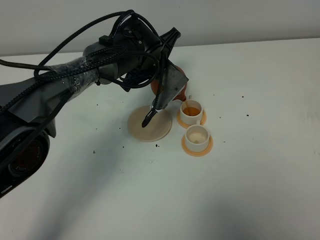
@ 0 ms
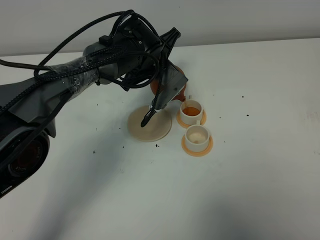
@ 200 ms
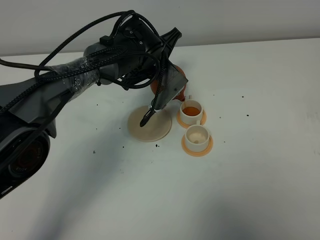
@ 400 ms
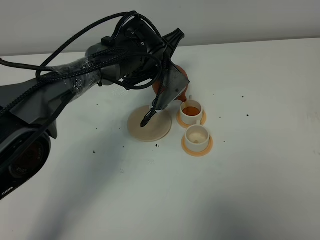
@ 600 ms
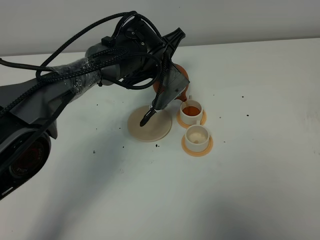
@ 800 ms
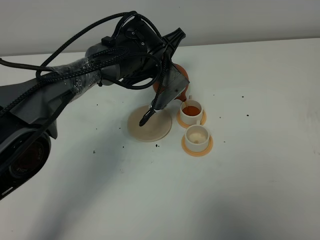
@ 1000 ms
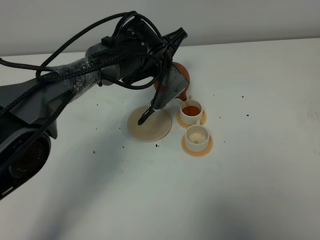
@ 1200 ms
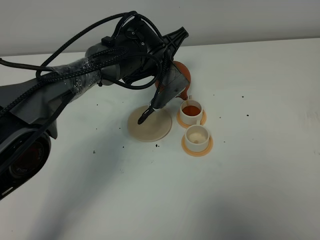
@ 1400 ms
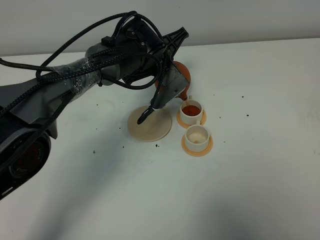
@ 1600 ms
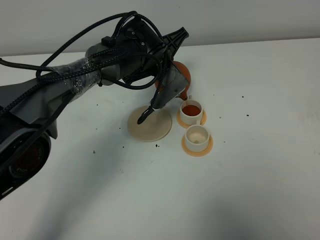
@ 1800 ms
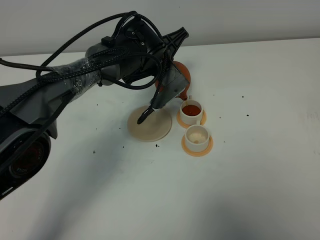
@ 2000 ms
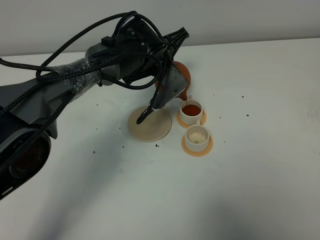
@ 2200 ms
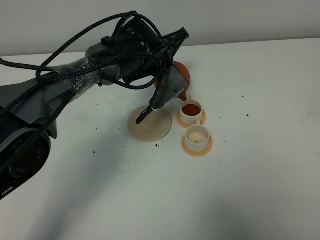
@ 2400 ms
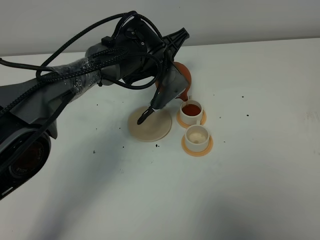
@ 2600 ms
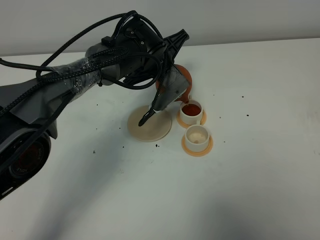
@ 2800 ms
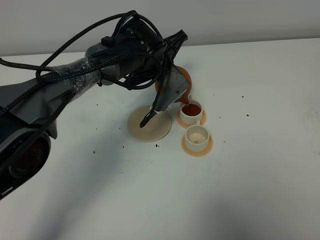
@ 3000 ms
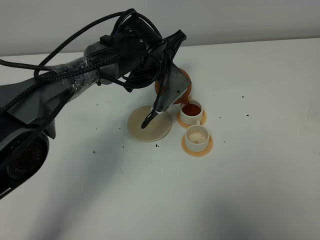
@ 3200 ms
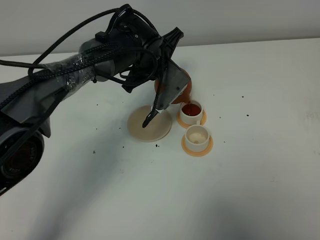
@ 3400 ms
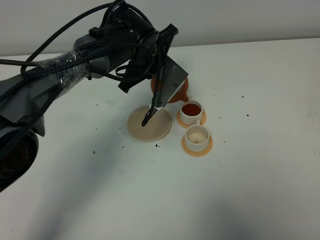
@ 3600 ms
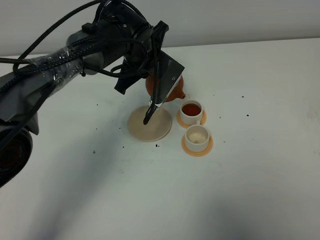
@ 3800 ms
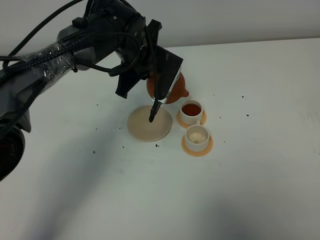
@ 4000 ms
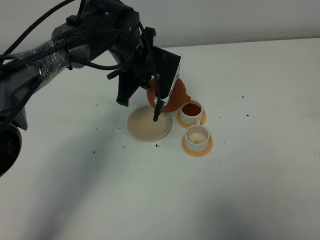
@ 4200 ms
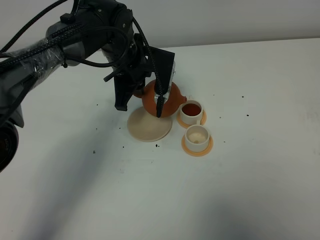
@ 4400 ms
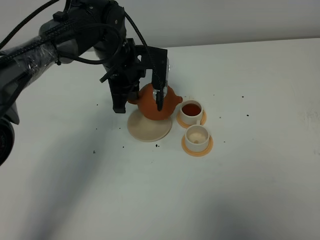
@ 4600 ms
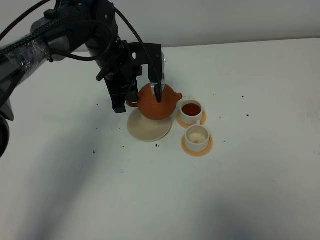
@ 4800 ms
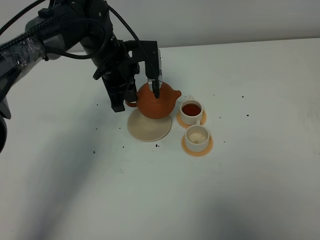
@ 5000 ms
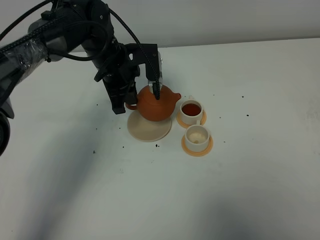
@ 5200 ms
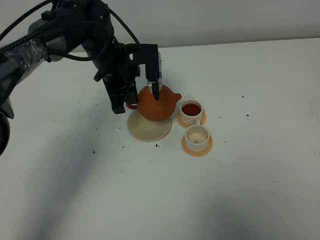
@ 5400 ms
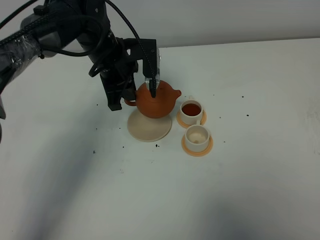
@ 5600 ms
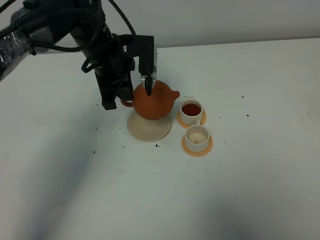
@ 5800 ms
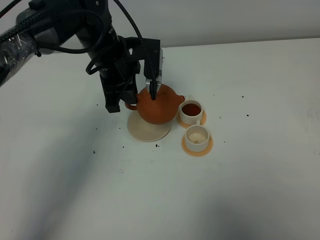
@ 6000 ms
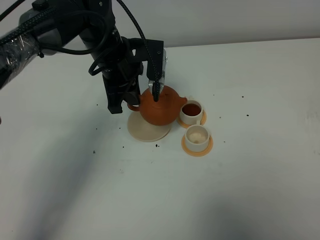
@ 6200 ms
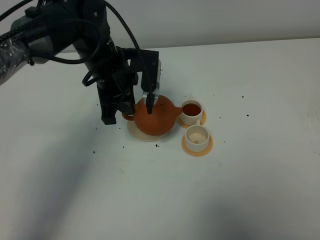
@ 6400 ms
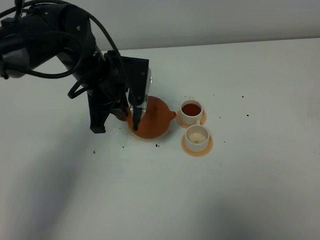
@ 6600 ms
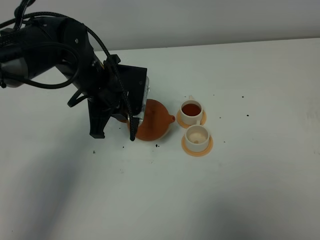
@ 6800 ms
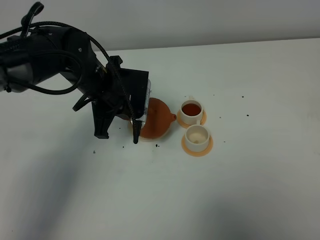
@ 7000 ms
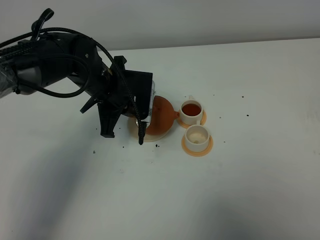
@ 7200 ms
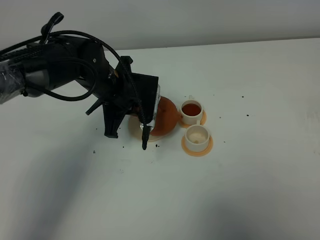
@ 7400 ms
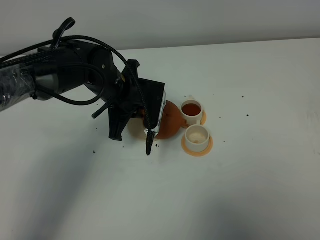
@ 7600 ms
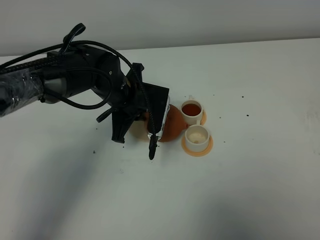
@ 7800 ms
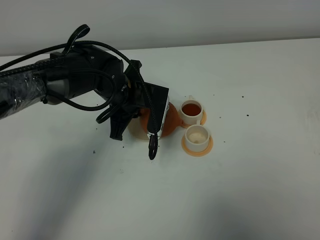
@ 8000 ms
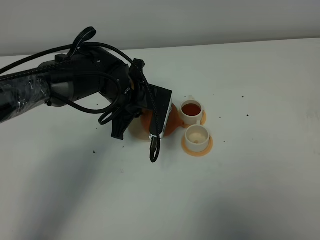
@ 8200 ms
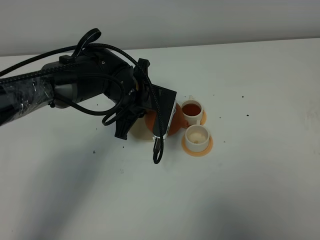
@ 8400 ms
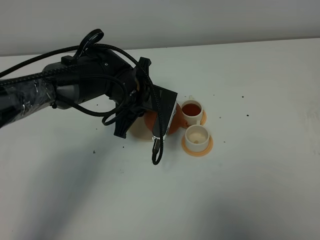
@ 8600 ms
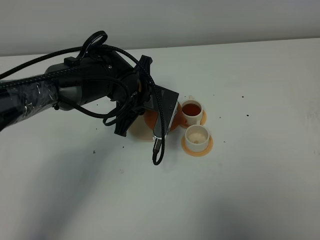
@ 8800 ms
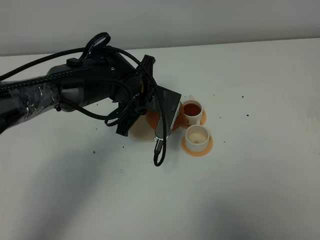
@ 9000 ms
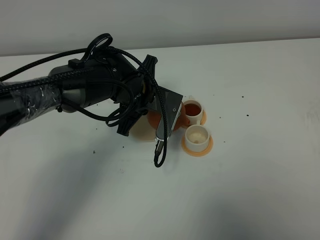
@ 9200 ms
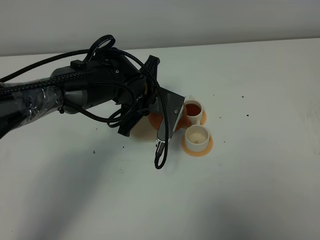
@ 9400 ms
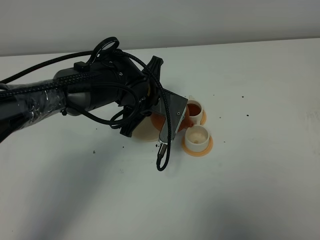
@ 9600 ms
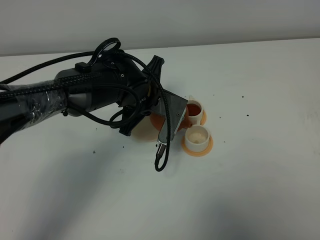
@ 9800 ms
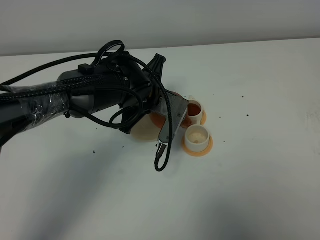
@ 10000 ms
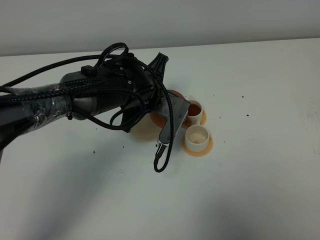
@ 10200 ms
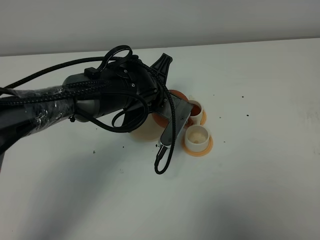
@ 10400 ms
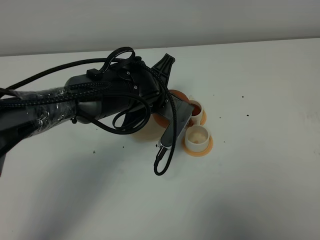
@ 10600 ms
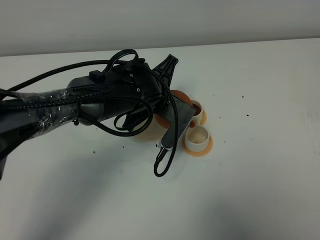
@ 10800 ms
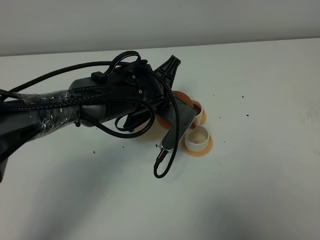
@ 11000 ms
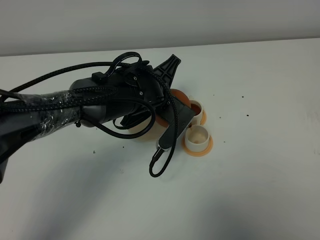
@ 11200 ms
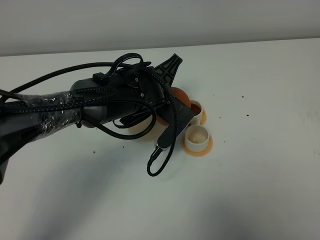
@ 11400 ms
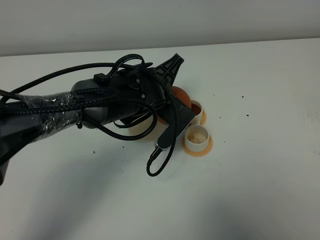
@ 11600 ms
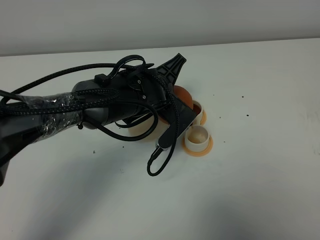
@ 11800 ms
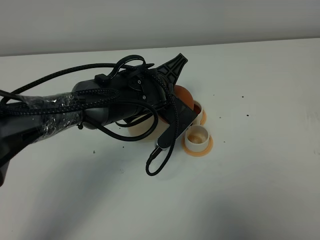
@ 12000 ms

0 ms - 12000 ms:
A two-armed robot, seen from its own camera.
Task of the whole recording: grasp the brown teapot and pour the tea into the two white teacups one by one, put the brown teapot back in its original place.
Step, 0 ms - 3400 ms: Pour tea into the teacup with the left gripper.
0 ms - 1600 ms: The grippers stay close to where they were, moving slightly.
1600 ms - 3000 ms: Both grippers stay put.
3000 ms - 4400 ms: The left gripper shifts some 5 cm to the left.
4400 ms - 6000 ms: The grippers make only small movements.
6000 ms - 7600 ms: The left gripper shifts about 5 cm downward.
7600 ms - 9000 ms: The grippers make only small movements.
9000 ms - 10400 ms: There are only small adjustments of the grippers.
10400 ms - 12000 ms: The grippers stay close to where they were, moving slightly.

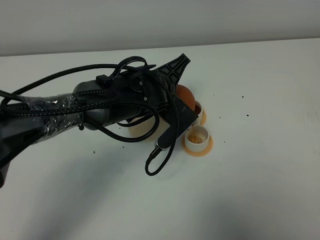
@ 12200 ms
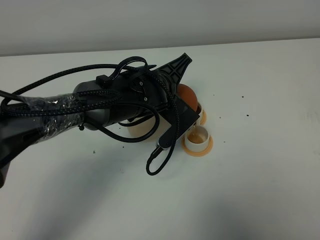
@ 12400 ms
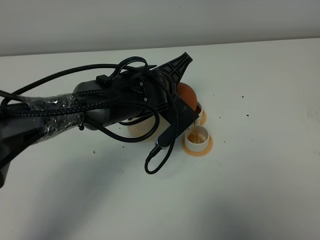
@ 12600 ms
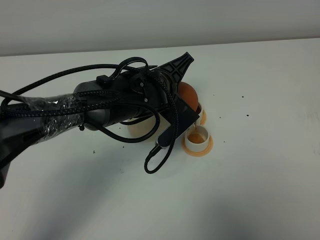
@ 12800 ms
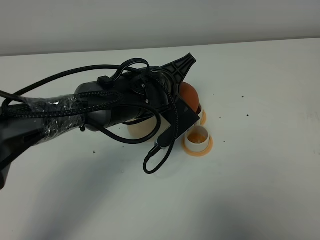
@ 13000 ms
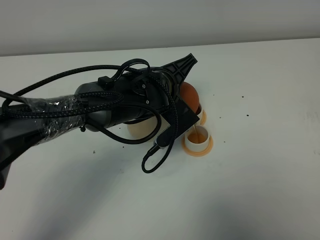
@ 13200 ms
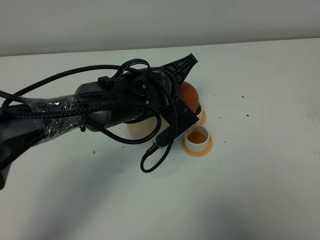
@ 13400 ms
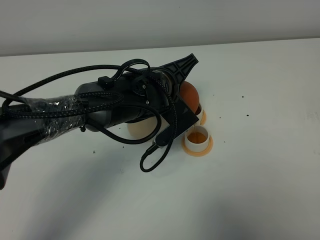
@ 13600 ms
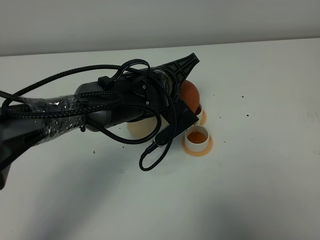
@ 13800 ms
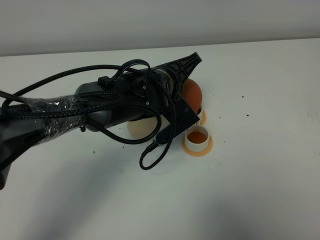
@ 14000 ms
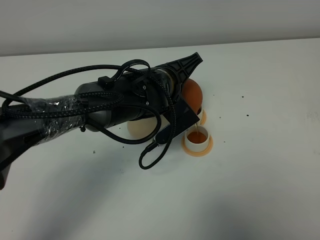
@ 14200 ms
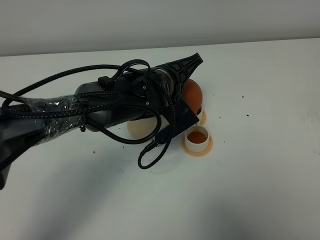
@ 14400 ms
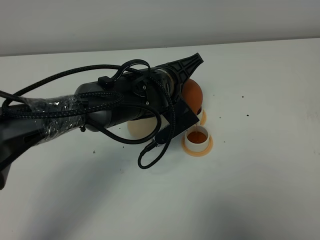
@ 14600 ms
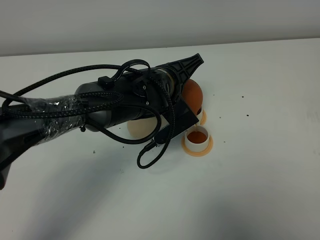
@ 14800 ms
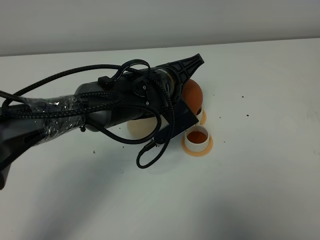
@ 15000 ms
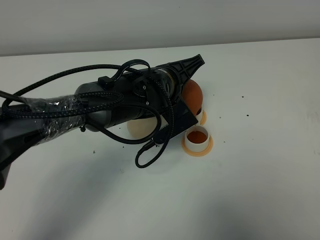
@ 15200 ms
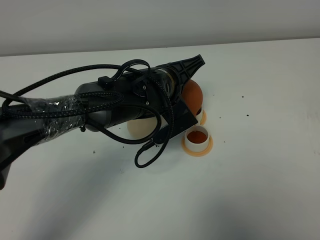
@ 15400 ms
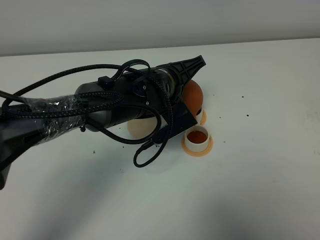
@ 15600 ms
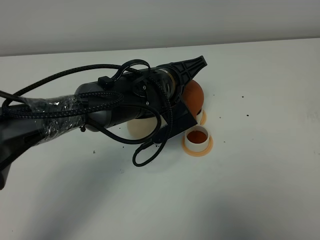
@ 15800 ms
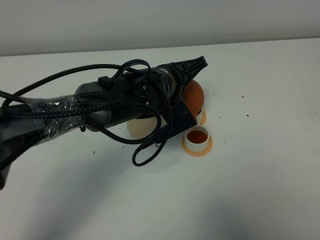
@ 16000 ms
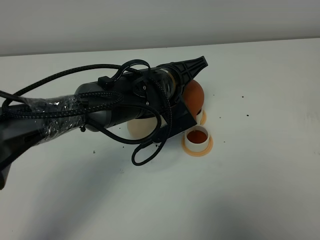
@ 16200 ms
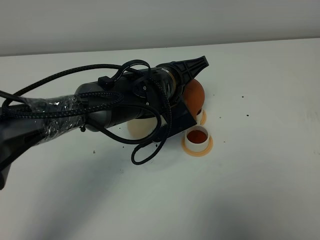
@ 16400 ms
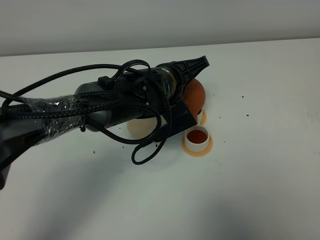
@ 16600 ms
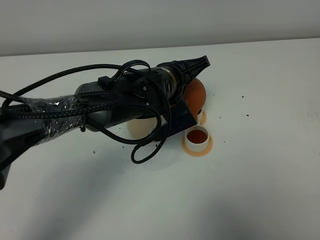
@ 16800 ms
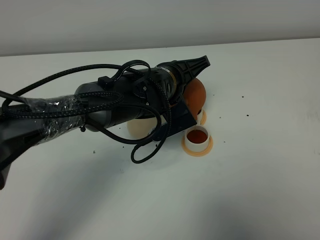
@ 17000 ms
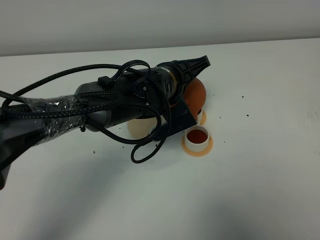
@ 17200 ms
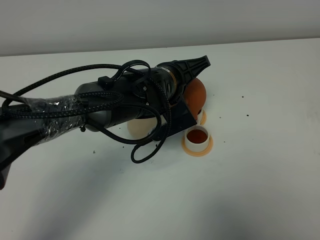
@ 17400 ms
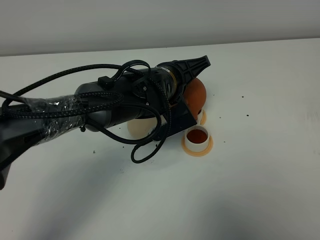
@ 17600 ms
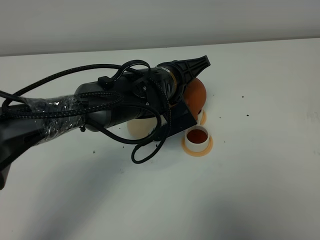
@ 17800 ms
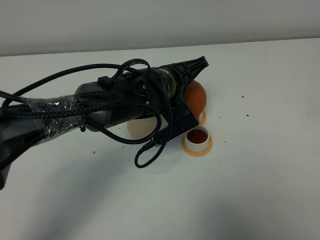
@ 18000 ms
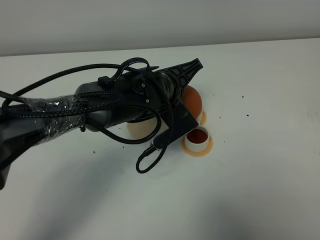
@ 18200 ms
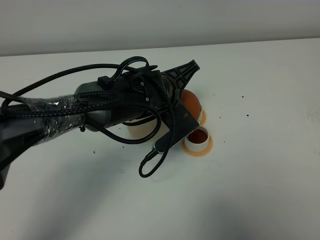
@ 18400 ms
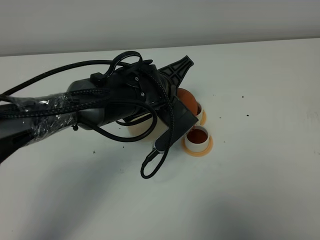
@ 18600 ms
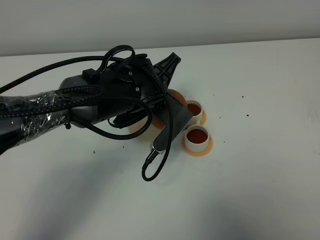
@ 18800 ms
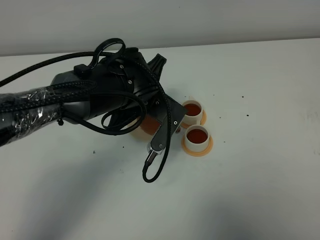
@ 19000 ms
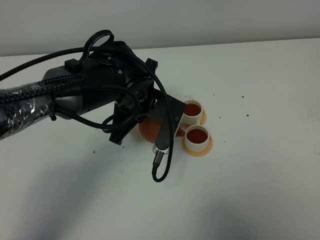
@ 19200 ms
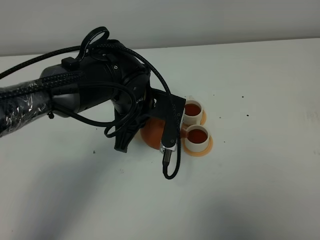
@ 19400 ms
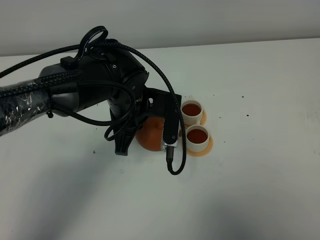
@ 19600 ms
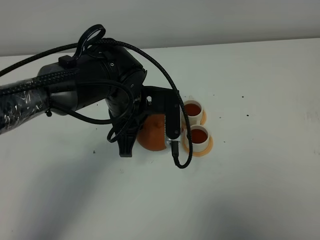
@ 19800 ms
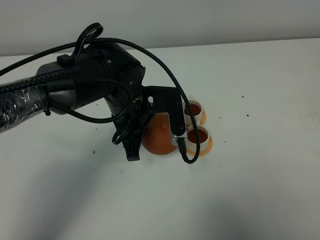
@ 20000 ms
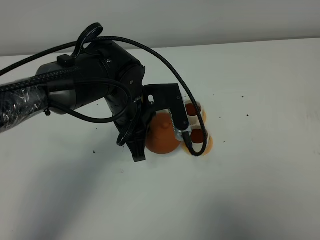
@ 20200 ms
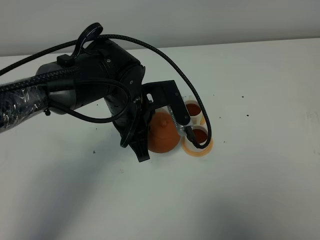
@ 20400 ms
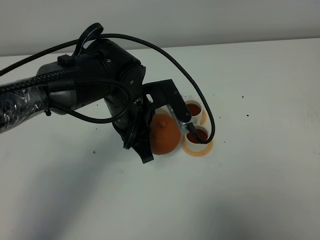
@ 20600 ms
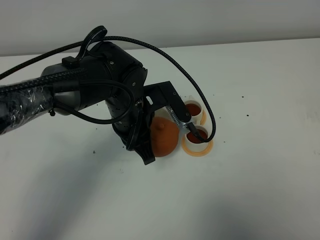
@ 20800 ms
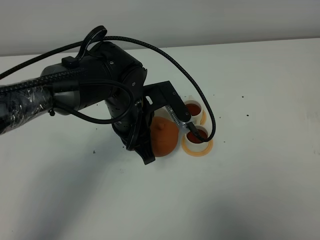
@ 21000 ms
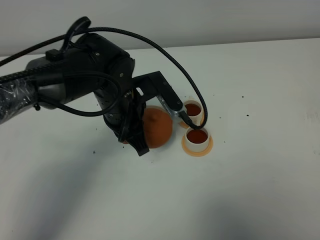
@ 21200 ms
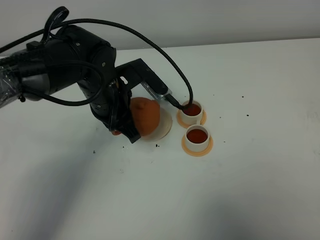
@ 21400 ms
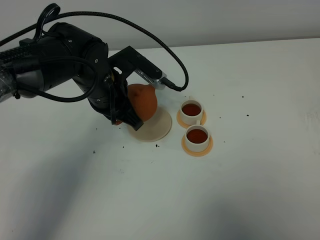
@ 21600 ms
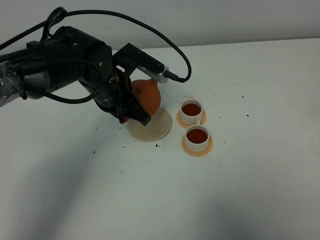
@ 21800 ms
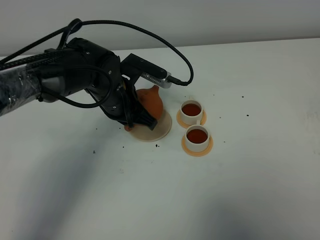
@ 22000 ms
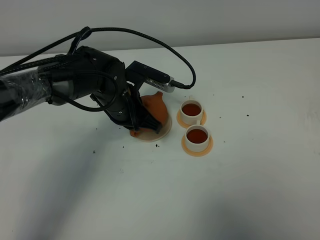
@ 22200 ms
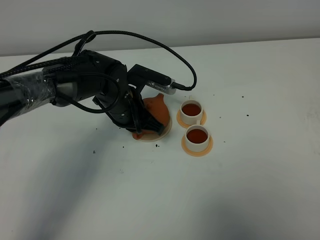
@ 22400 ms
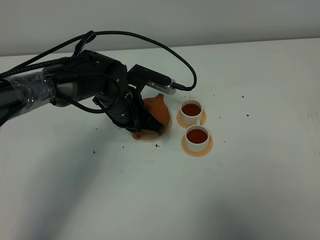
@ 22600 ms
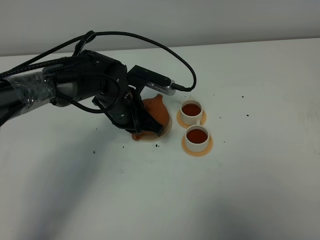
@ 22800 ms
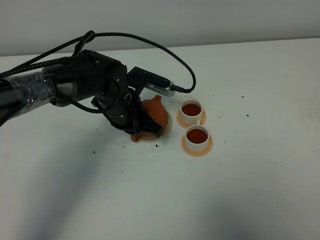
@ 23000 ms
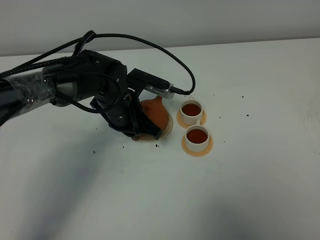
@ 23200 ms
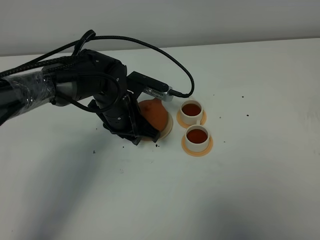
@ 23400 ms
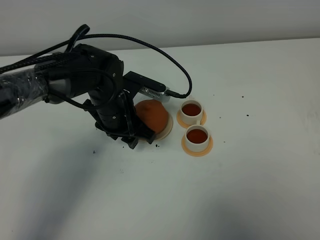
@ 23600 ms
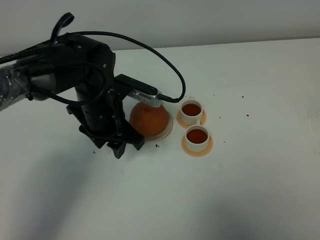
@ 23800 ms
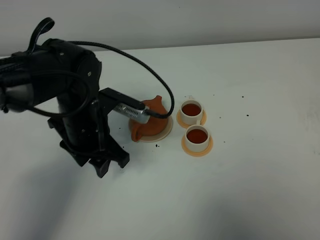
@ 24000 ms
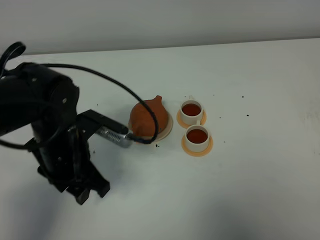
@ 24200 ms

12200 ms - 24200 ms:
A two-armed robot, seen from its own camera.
Task of the whole recording: grasp the brown teapot and pour the tea into the two white teacups one by one, put the brown teapot back in its original place.
Step, 12200 ms - 17800 ms: Pour tea into the teacup with the left gripper.
12200 ms - 15200 ms: The grippers stay close to where they were, moving slightly.
15200 ms - 18200 ms: The grippers move only a little.
18200 ms - 19800 ms: The left gripper is displaced to the left by some 5 cm.
21200 ms - 22600 ms: The left gripper heads downward, covering about 5 cm.
22600 ms - 24200 ms: The left gripper is displaced backward and to the left by roughly 15 cm, and opens its fingers.
